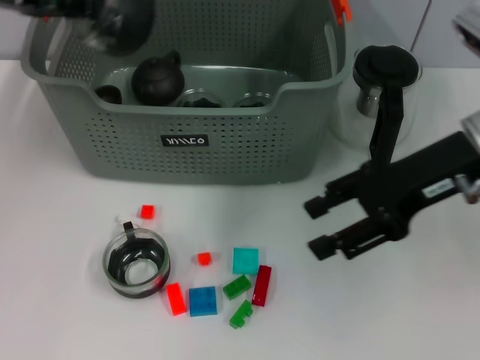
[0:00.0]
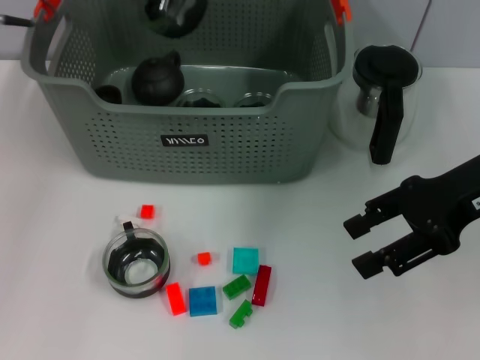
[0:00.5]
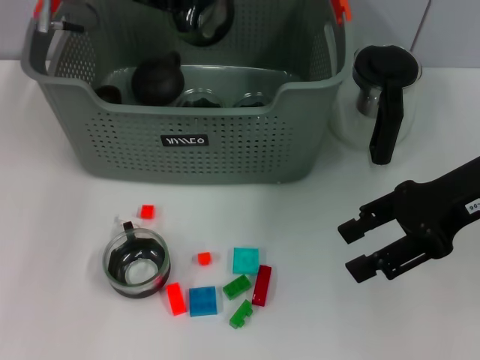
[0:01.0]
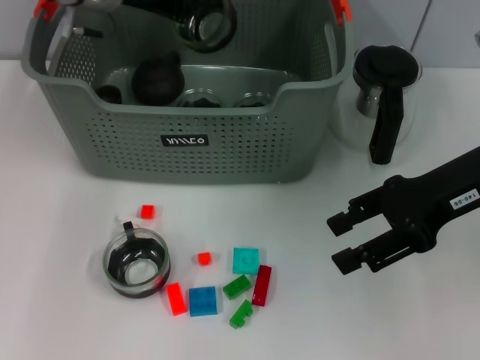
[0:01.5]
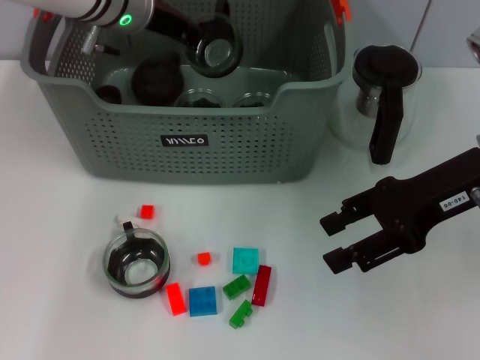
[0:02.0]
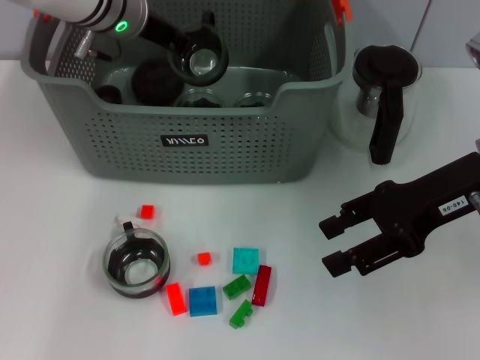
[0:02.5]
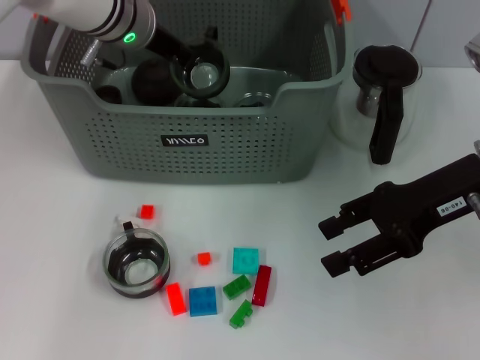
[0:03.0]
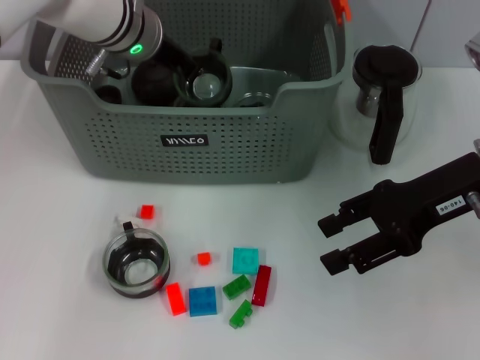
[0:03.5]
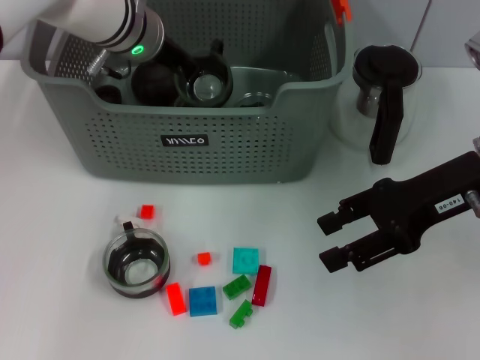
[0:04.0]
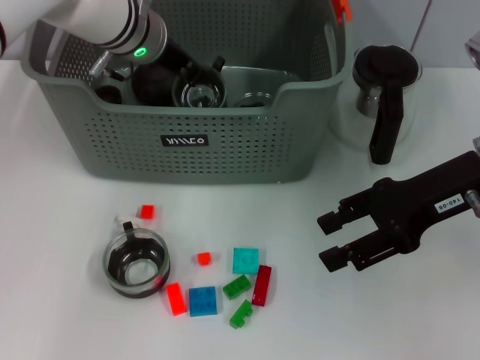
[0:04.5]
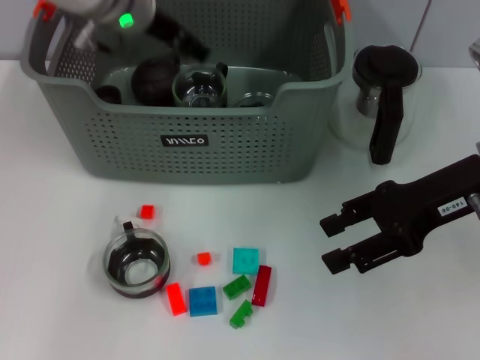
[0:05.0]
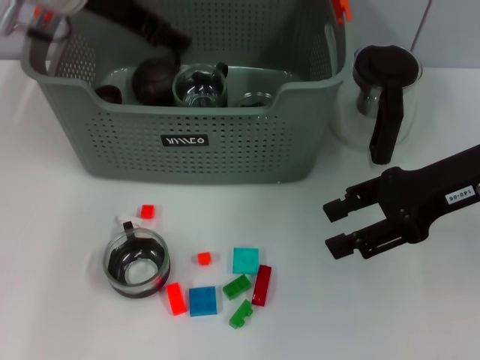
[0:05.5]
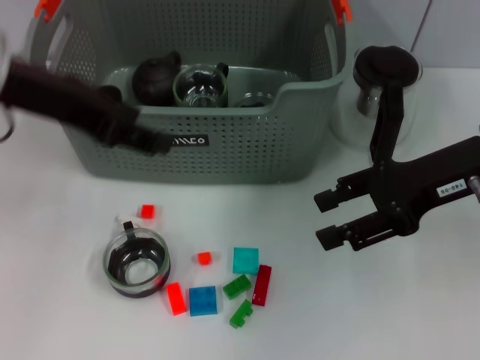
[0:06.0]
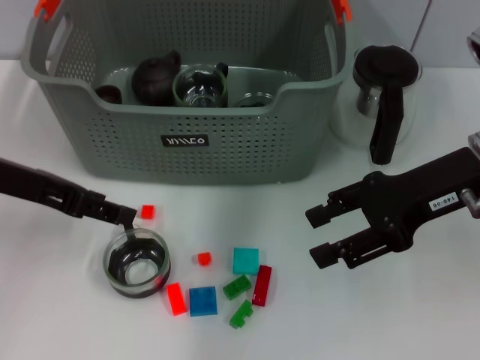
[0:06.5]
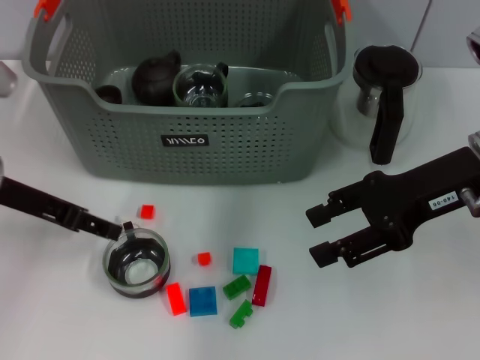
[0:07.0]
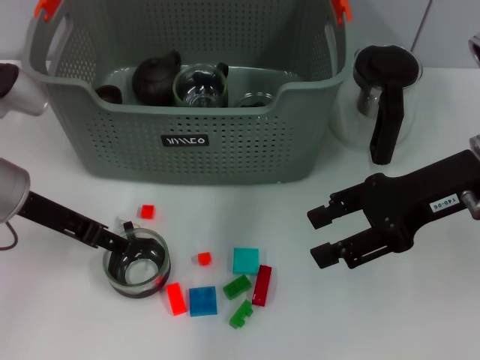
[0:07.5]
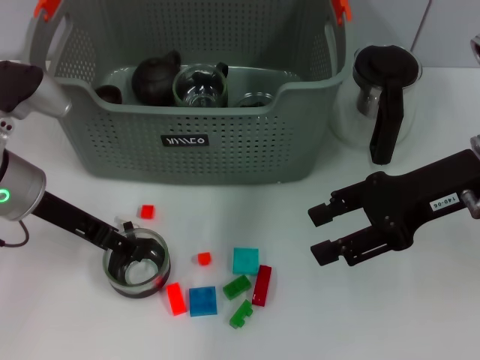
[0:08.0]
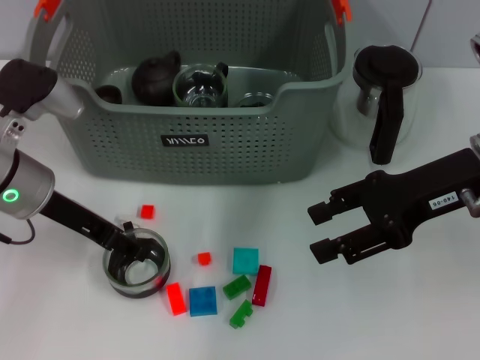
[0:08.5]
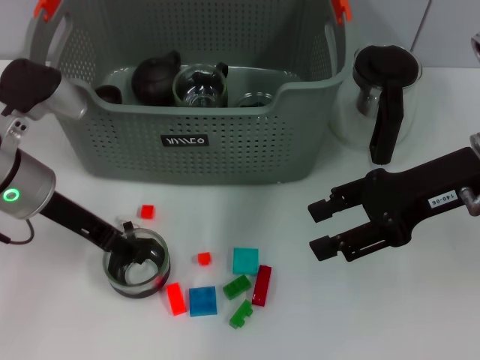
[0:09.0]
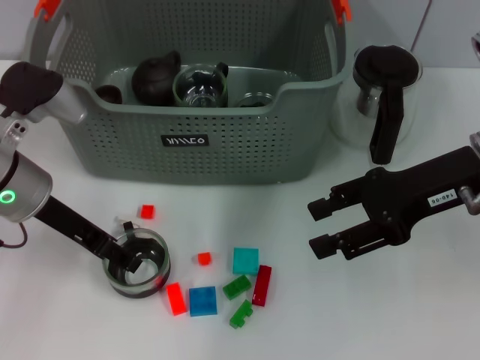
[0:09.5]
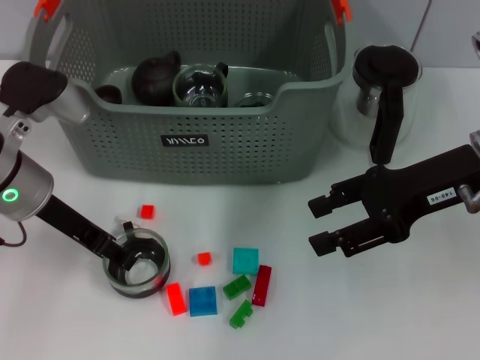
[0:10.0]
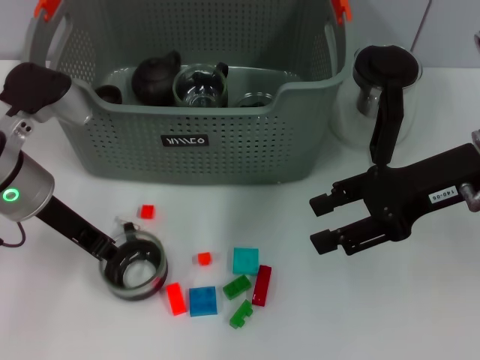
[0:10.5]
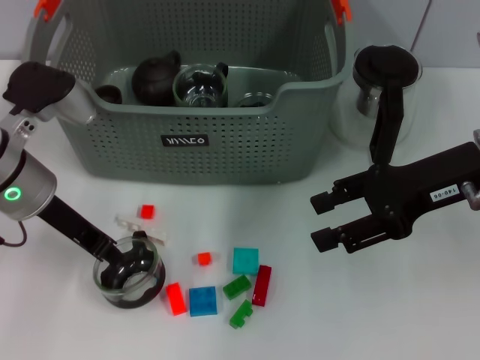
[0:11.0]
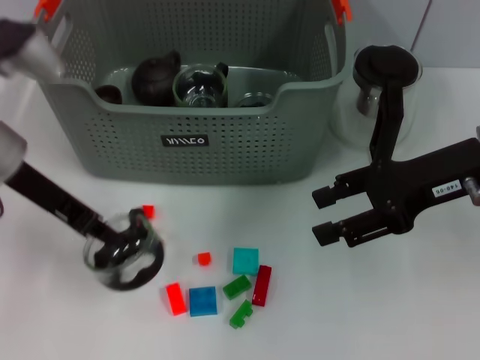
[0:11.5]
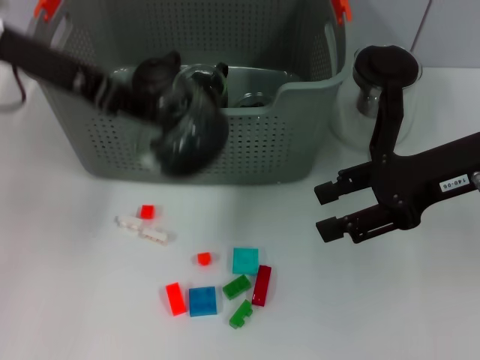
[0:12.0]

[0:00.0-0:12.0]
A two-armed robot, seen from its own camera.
Task of the whole recording: pick up the teacup on the table and place it into the storage bin, pick up the block on the table and place it into the storage bin.
Step, 0:00.0 to 0:05.0: Place the cup in the storage box with left gripper.
Step, 0:05.5 to 0:11.5: Grasp the cup with left gripper.
0:00.0 to 0:02.0: The left gripper goes roughly 20 cm to the right, forward and downward.
0:02.0 to 0:04.0: The grippers make only small movements.
0:04.0 to 0:06.0: The left gripper heads backward, to the left and upward, covering about 20 cm, and opens its fingers.
0:06.0 to 0:08.0: The left gripper is displaced downward by about 15 cm.
0:08.0 to 0:10.0: The grippers stay close to where they were, moving slightly.
0:10.0 to 0:12.0: The left gripper travels upward by roughly 15 cm, and closes its fingers.

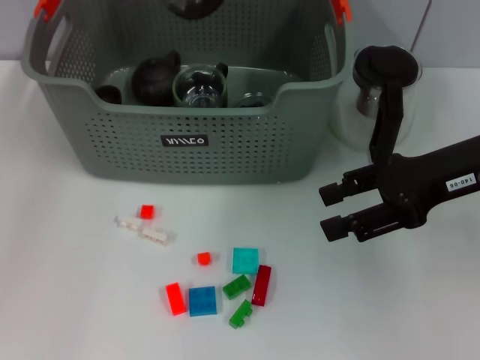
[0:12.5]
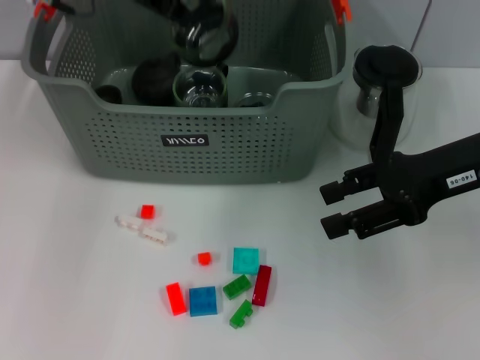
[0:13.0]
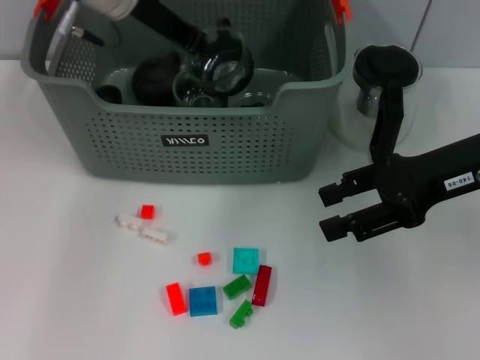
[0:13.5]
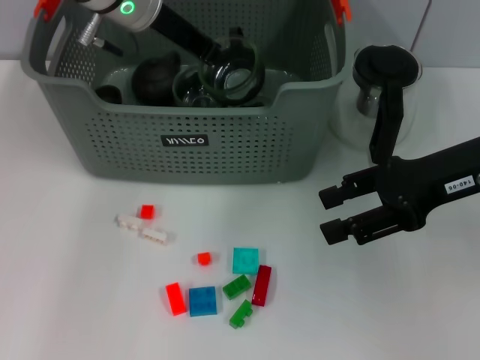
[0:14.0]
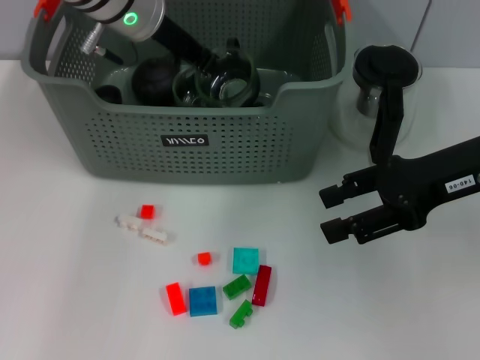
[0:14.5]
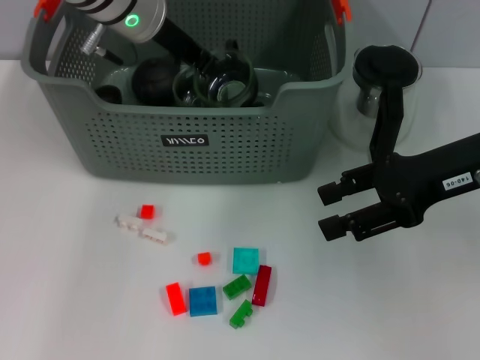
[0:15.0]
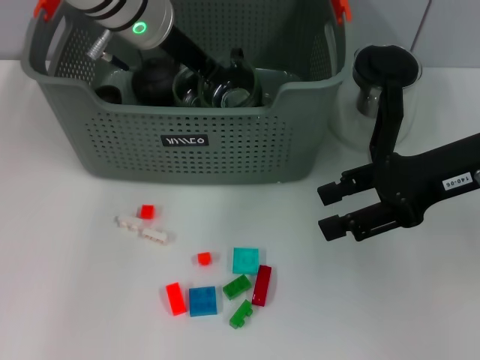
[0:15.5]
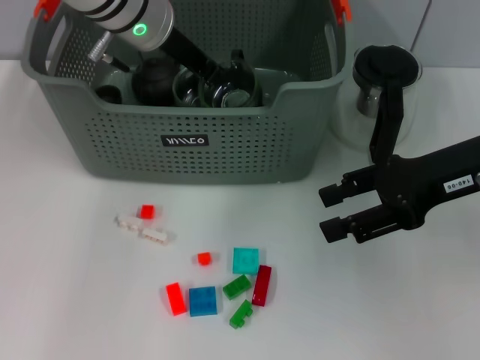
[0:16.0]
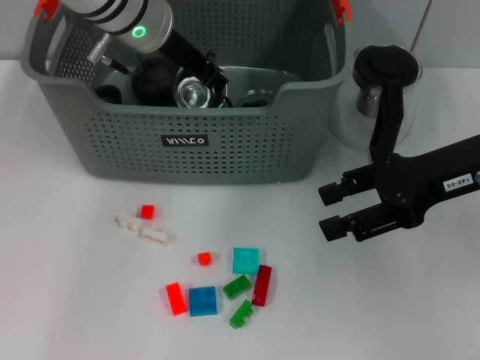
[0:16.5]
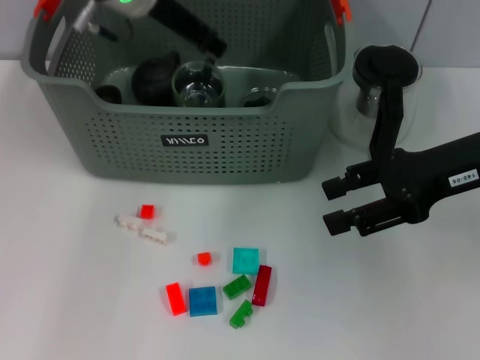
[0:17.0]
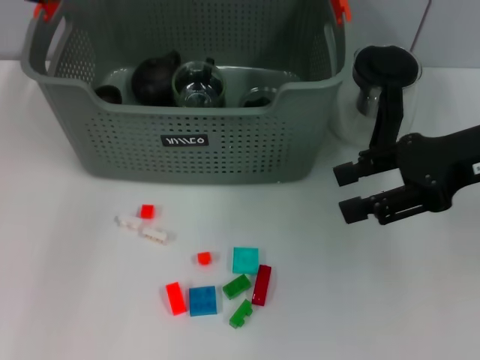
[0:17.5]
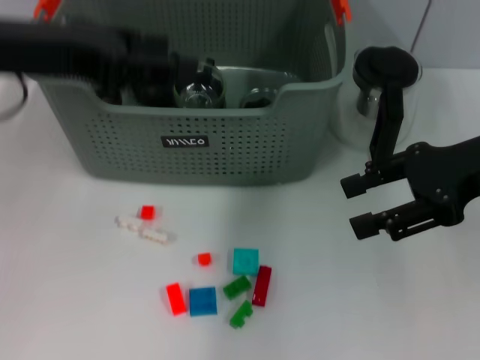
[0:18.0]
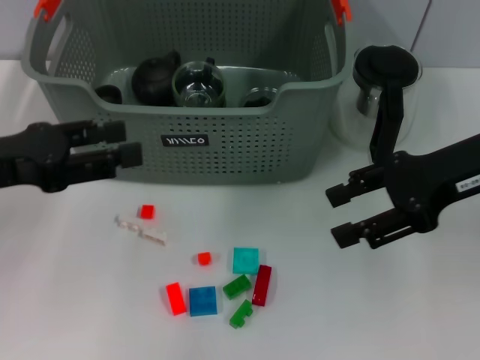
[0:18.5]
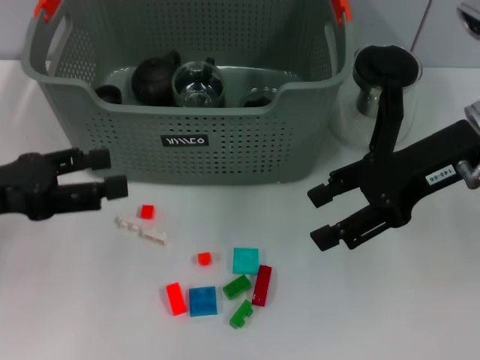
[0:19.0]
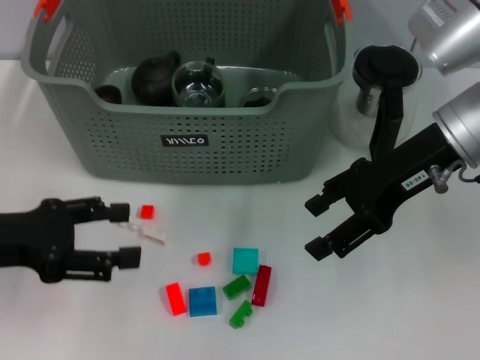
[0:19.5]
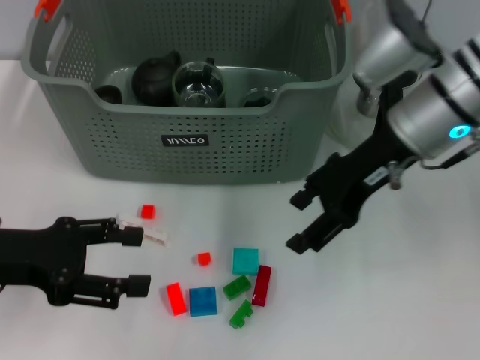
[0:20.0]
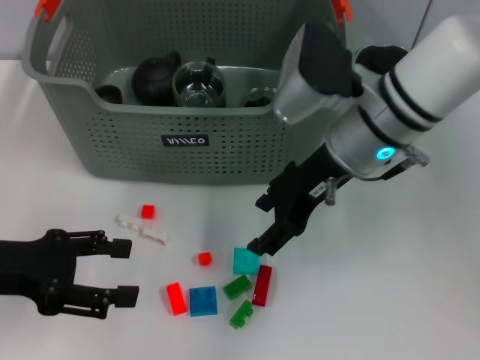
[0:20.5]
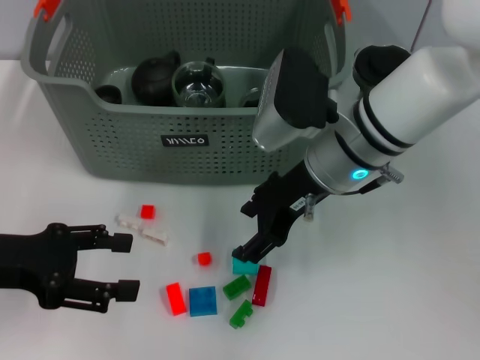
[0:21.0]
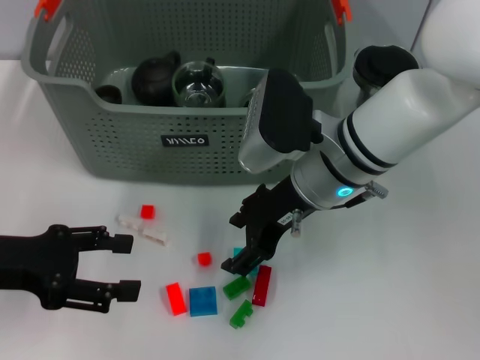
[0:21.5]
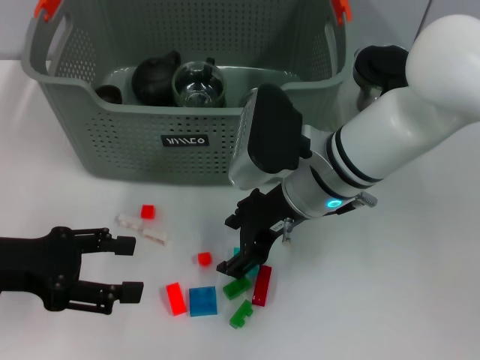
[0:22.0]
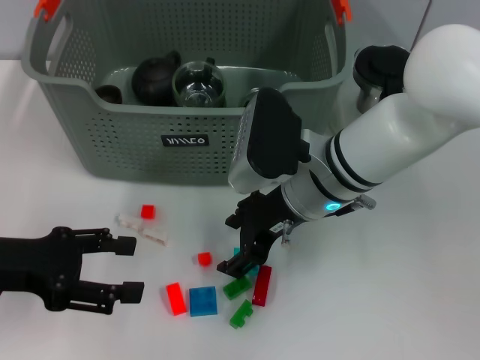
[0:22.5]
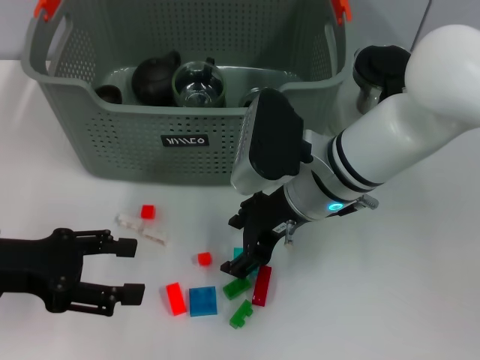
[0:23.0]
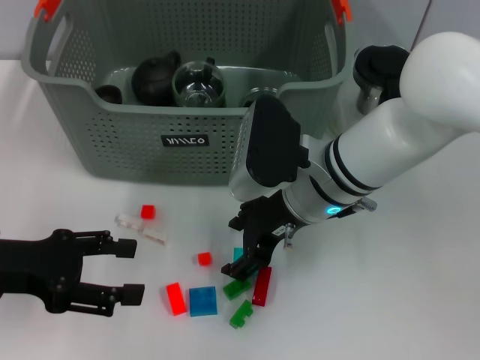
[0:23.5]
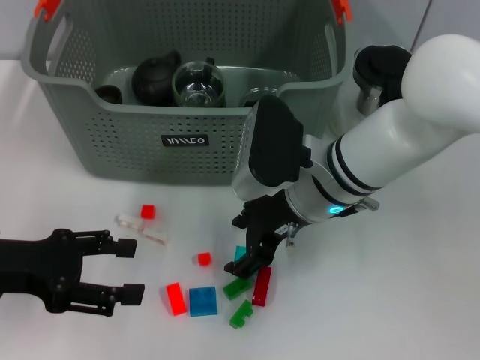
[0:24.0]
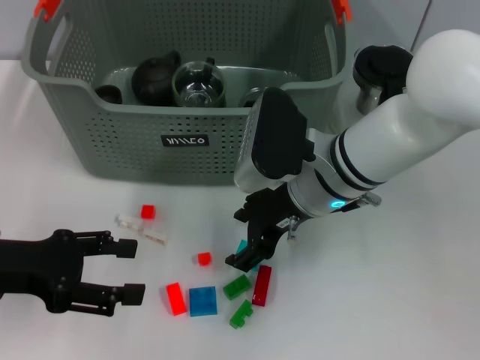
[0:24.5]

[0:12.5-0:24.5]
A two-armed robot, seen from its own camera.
Task of the whole recording: pick up the teacup on the table and place it into the storage bin, pick up the block on the table and place it into the storage bin.
Step, 0:12.5 to 0:16.5: Place the cup in the storage box with left gripper.
0:12.5 to 0:14.5: The left gripper is displaced downward and to the right by about 15 cm.
0:14.5 to 0:16.5: Both grippers stay about where they are.
0:16.5 to 0:18.5: The left gripper shifts roughly 25 cm backward and to the left, and opens.
0:18.5 to 0:20.5: The left gripper moves downward, some 5 cm. Meanwhile the right gripper travels to the left by about 15 cm.
0:20.5 to 0:22.5: The right gripper heads downward, covering about 5 cm.
0:22.5 to 0:24.5: Neither gripper changes place.

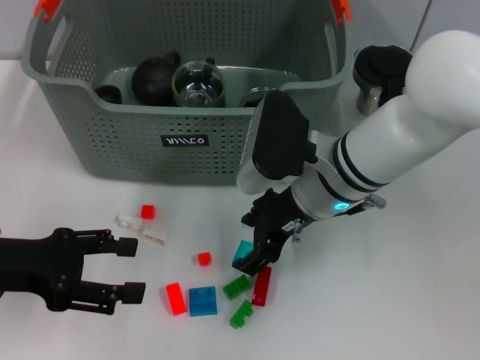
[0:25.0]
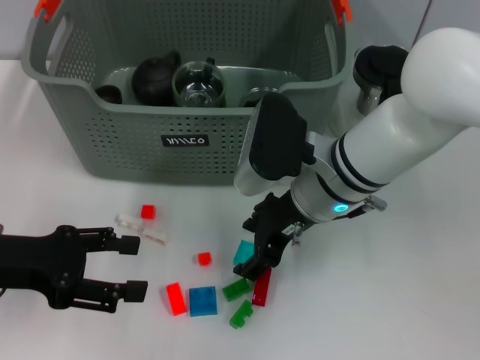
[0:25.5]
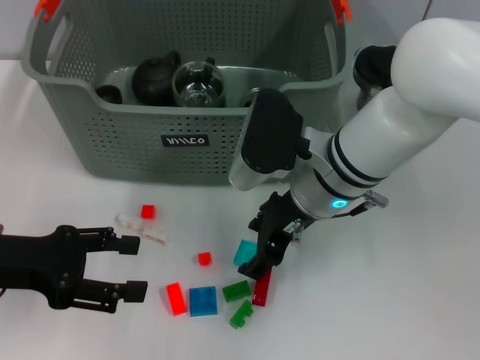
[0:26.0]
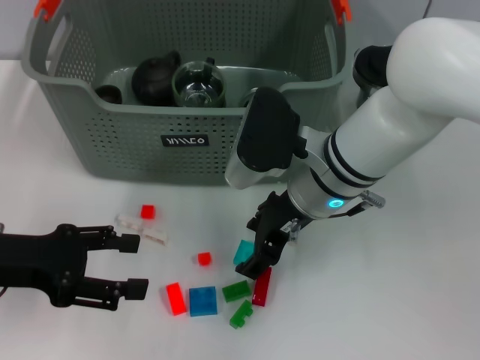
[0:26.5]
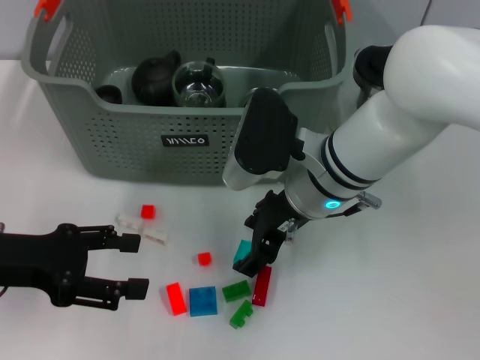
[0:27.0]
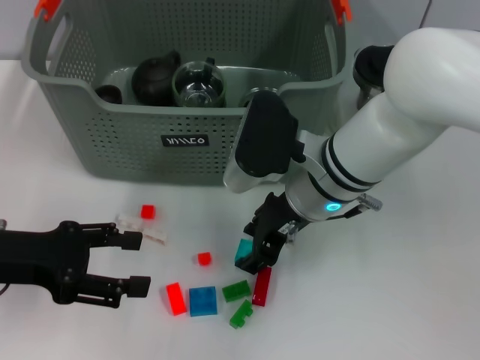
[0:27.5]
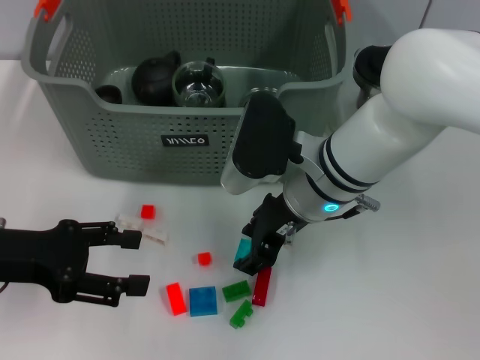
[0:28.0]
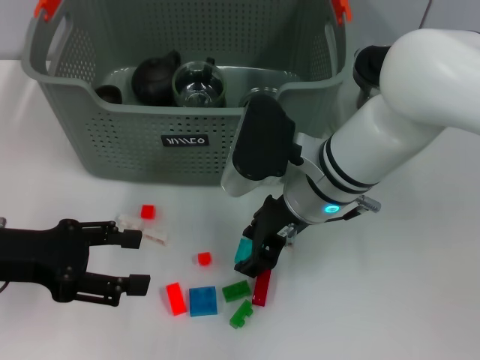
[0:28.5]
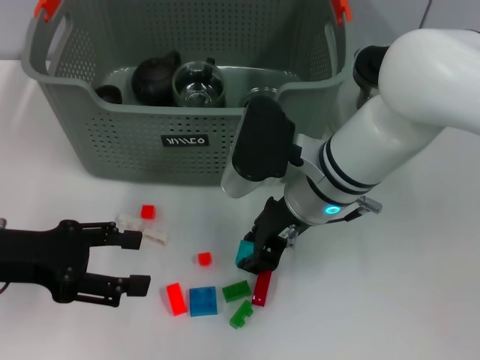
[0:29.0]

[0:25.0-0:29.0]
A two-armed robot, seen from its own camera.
Task of the whole recording: pick up the teacup on the table and place it into the storage bin, pick up the block on the table and place it into the storage bin.
0:25.0 to 0:27.0: The grippers move only a little.
0:27.0 to 0:29.0: The two grippers keep their place.
